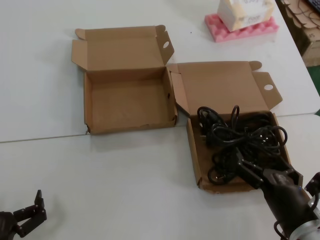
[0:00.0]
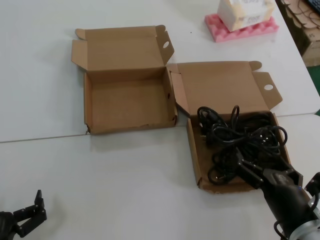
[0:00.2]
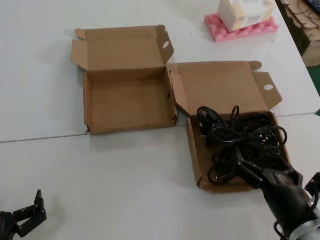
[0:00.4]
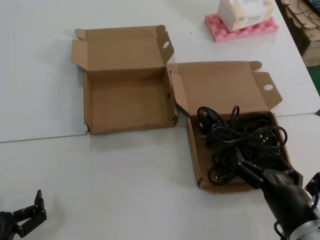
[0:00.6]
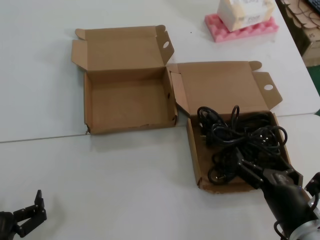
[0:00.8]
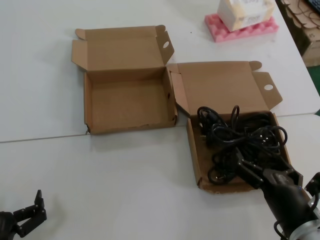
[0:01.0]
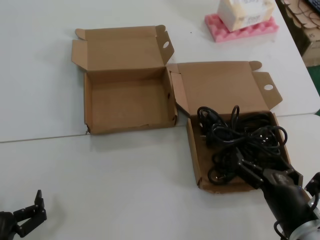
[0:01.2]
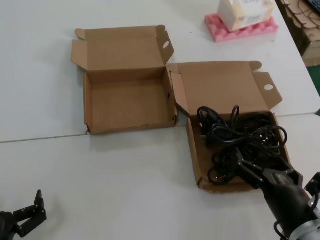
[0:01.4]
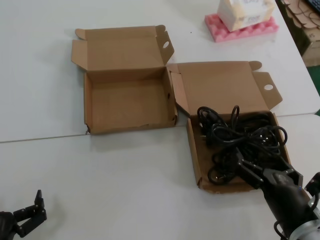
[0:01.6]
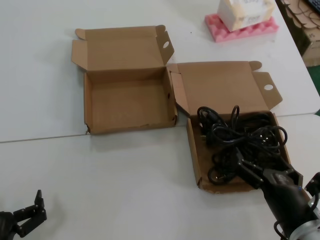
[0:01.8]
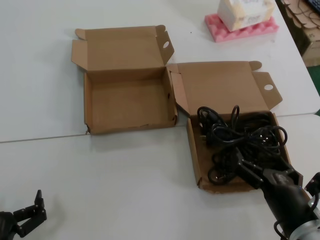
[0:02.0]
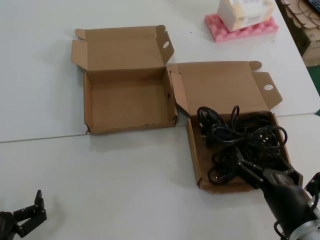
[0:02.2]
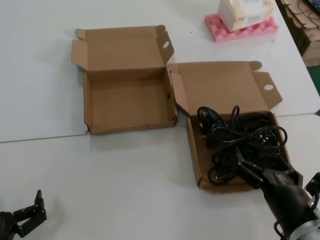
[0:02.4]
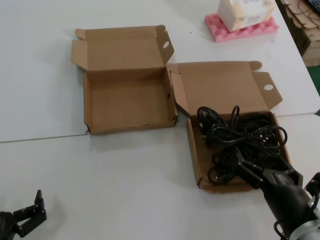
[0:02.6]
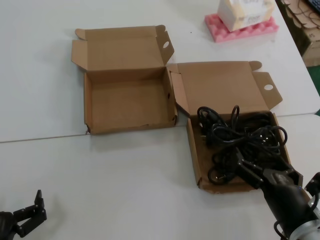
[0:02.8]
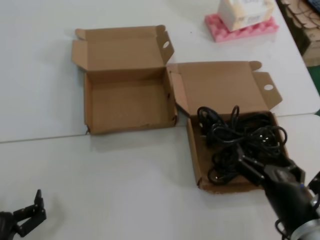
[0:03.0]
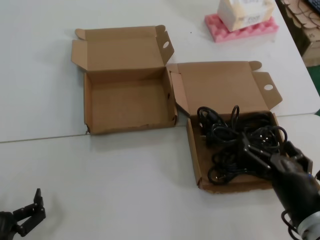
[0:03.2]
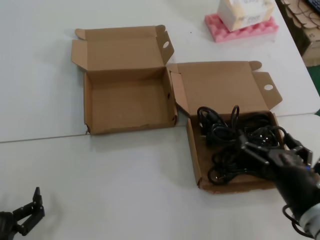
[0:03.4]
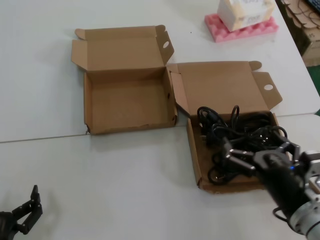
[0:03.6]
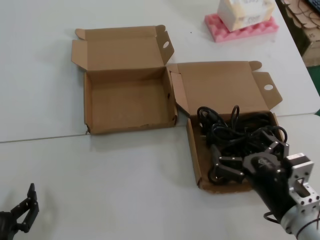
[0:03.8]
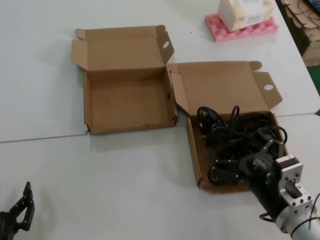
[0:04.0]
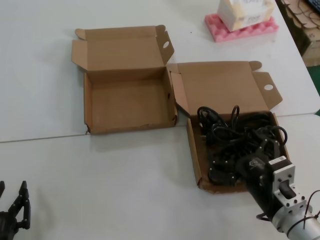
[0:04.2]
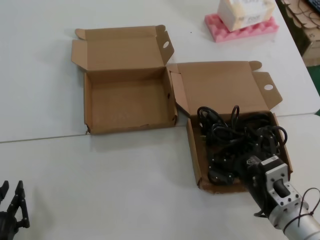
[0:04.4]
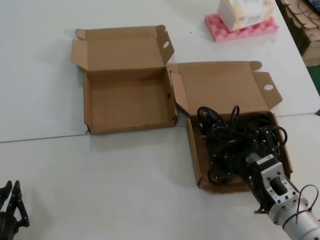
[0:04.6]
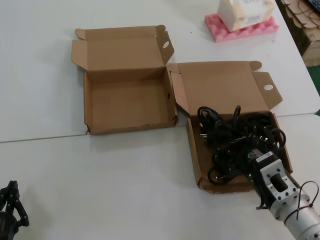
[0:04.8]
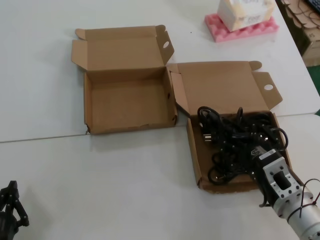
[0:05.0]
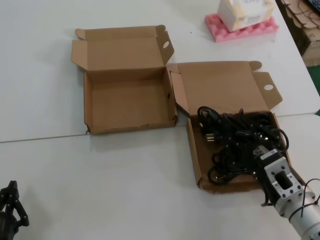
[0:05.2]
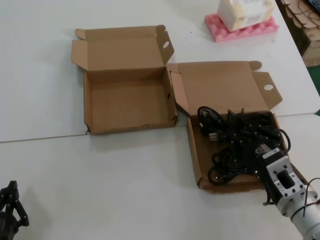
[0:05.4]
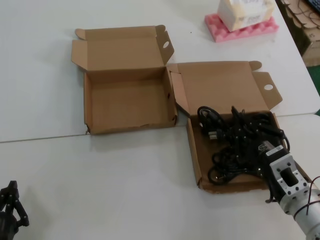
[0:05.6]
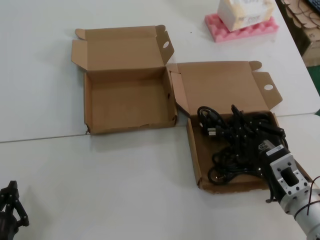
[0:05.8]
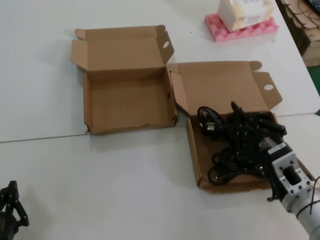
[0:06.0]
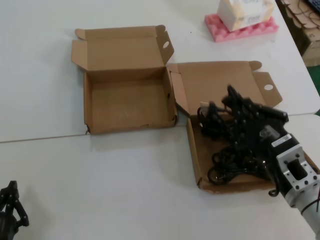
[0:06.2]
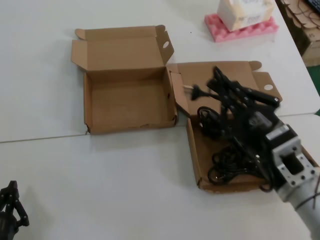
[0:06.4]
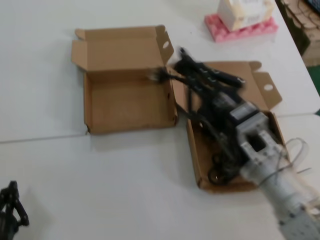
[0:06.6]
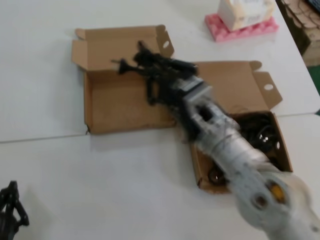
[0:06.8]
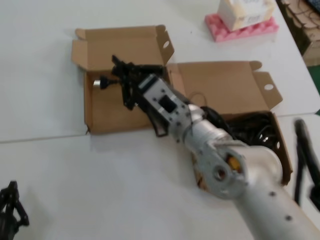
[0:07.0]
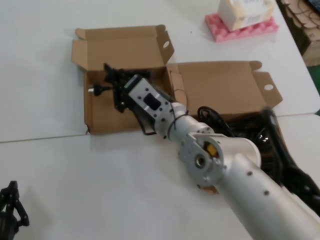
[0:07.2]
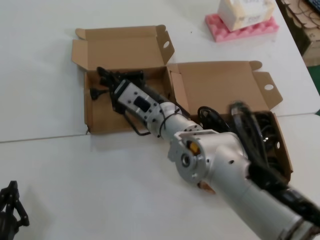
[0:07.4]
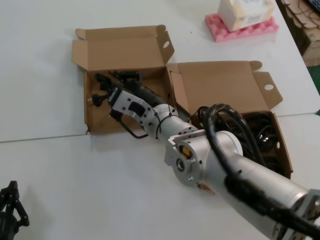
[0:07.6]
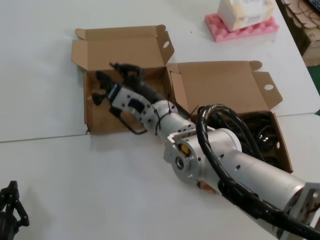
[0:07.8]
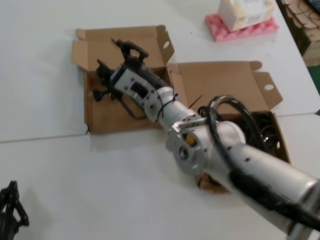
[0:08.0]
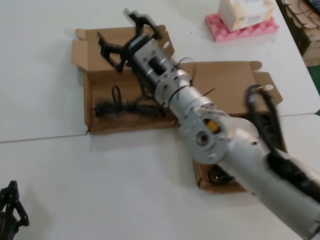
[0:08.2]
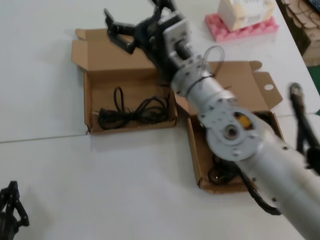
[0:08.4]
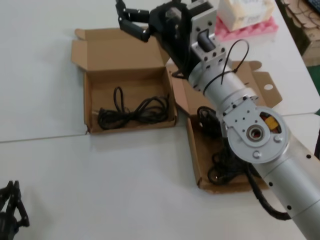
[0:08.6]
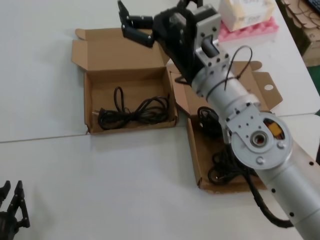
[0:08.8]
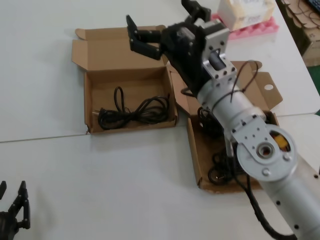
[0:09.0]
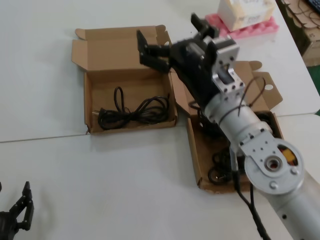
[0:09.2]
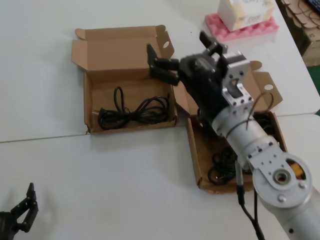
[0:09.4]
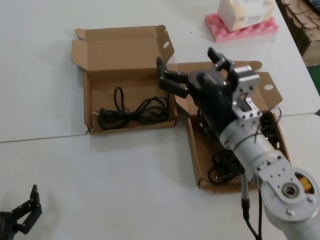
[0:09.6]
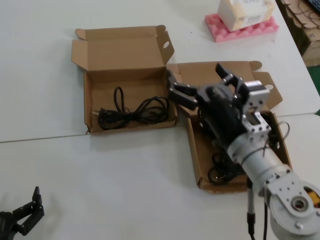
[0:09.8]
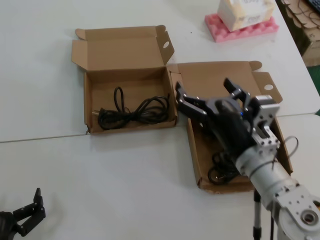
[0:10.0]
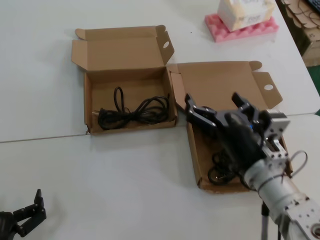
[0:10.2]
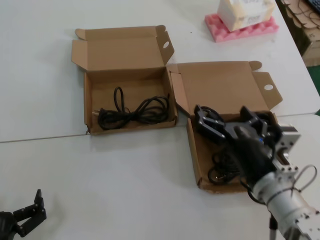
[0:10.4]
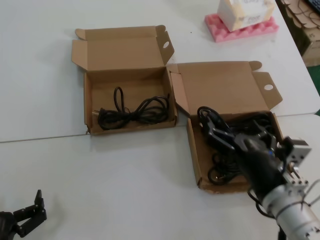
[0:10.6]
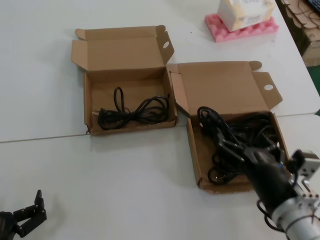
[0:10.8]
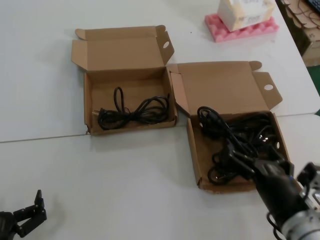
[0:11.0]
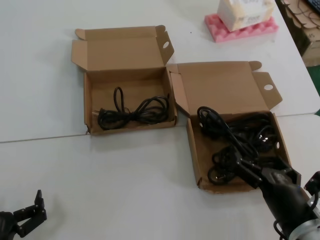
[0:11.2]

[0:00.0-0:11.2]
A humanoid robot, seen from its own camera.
Task of the whole recording: Pick up the power cord from the box containing it and place it in another box.
Step, 0:00.0 to 0:05.6: Grasp the data cable.
Step, 0:05.8 to 0:08.2: Place the data cable in the another box.
0:00.0 to 0:01.6: Neither hand changes place.
0:01.6 to 0:03.2: The hands move only a little.
0:03.2 to 0:04.8: The right hand shifts roughly 5 cm forward.
0:04.8 to 0:06.4: The right hand goes about 10 cm upward.
0:06.4 to 0:08.0: The right hand goes about 25 cm forward and to the left.
0:08.0 to 0:09.6: The right hand is displaced to the right and backward by about 15 cm.
0:09.6 to 0:11.2: The right hand moves downward, backward and to the right, approximately 20 cm.

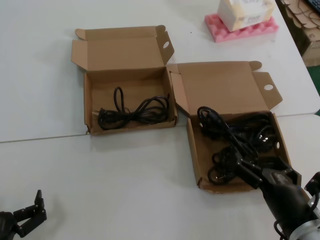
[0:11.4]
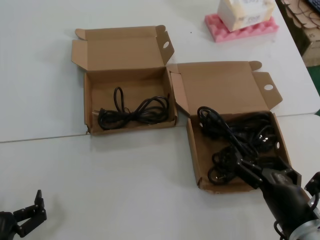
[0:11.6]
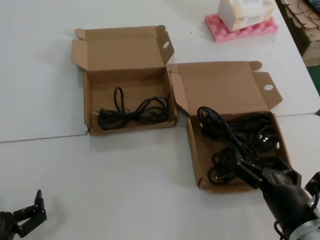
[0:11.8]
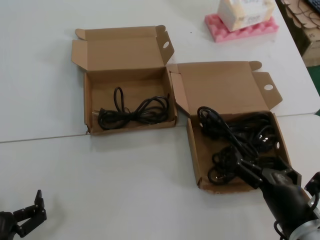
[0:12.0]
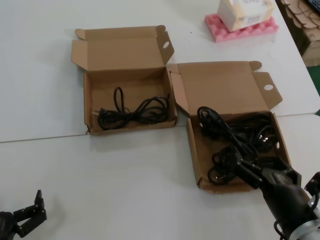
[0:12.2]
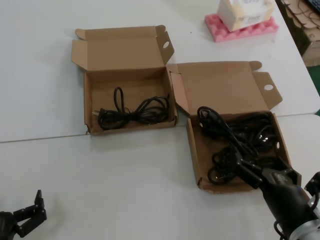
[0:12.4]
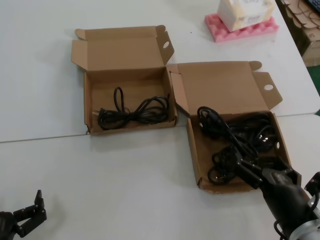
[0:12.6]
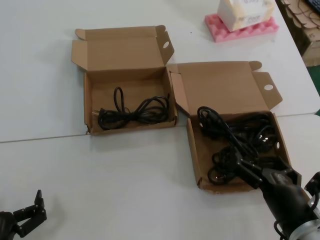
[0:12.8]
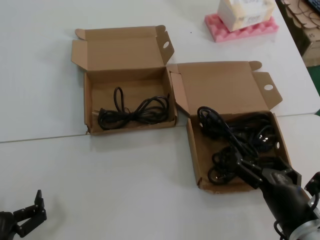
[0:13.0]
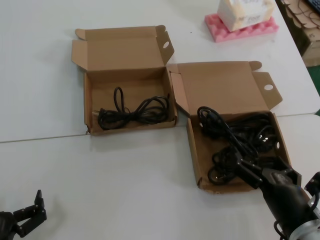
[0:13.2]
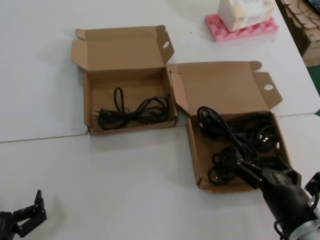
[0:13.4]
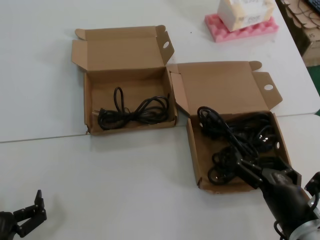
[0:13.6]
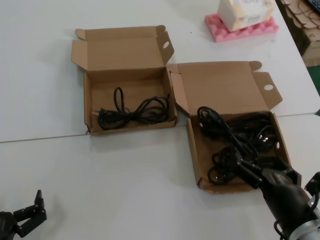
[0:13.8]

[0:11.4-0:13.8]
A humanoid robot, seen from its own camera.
Task of the whole recording: Pick up the power cord from the box containing it and place it in another box.
0:11.4 to 0:13.8: Both hands stay about where they are.
